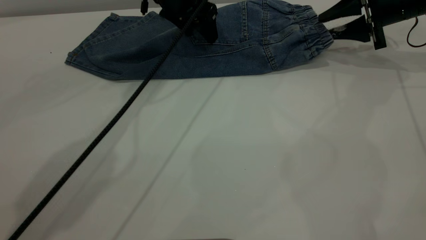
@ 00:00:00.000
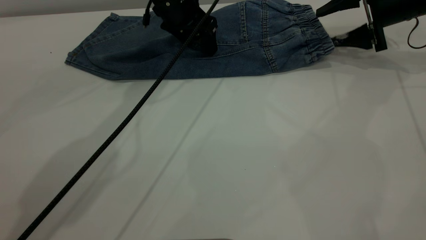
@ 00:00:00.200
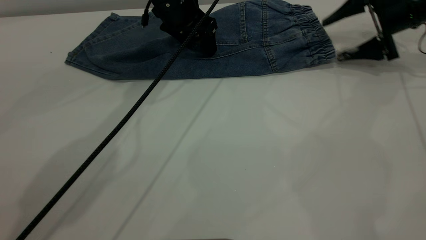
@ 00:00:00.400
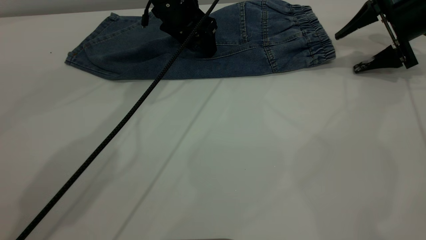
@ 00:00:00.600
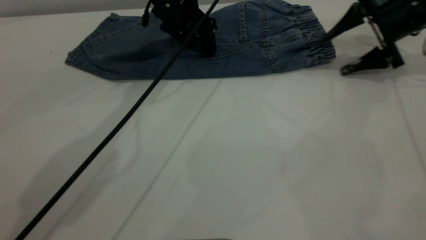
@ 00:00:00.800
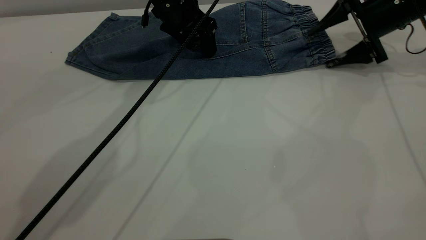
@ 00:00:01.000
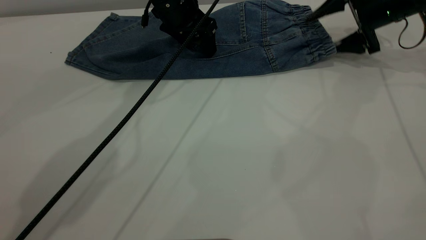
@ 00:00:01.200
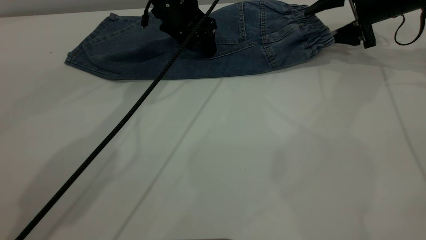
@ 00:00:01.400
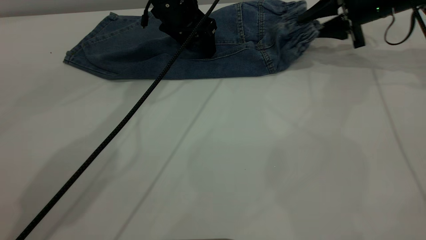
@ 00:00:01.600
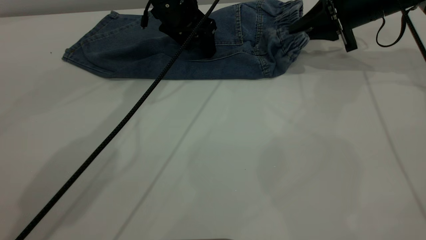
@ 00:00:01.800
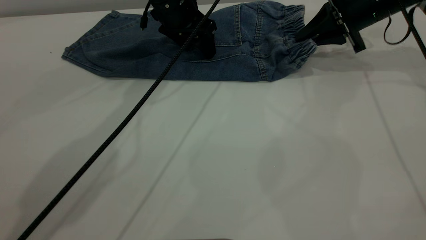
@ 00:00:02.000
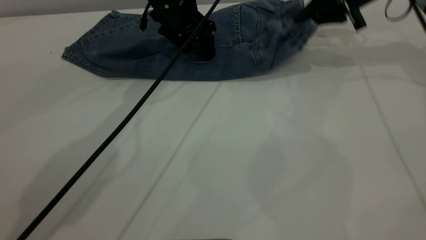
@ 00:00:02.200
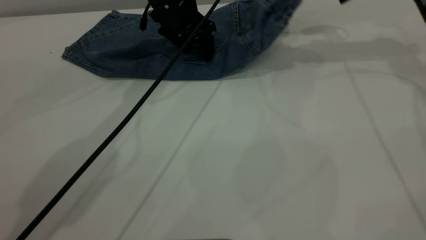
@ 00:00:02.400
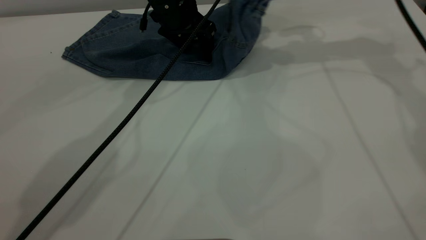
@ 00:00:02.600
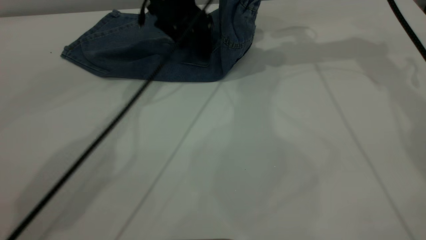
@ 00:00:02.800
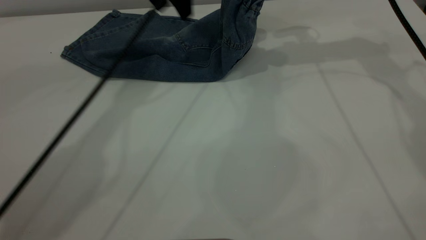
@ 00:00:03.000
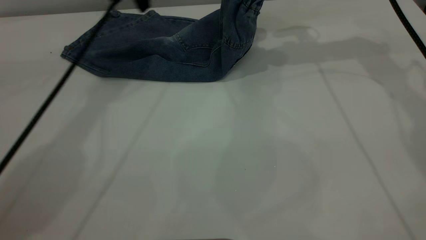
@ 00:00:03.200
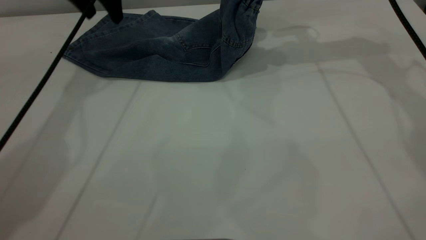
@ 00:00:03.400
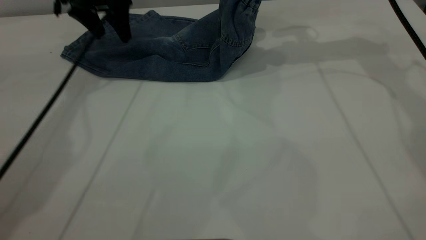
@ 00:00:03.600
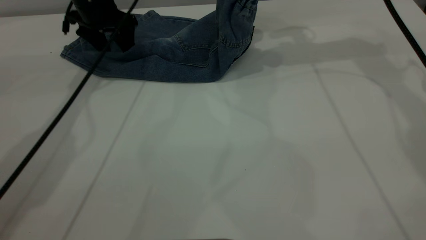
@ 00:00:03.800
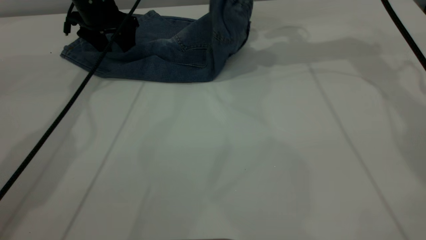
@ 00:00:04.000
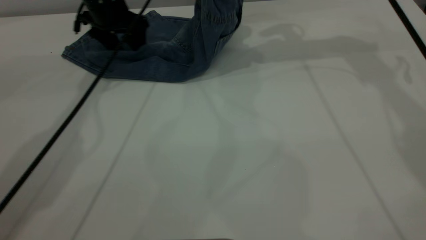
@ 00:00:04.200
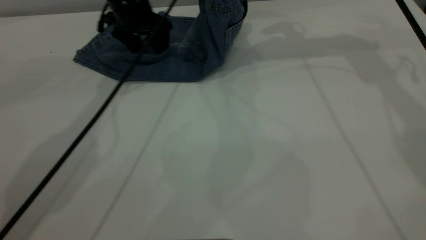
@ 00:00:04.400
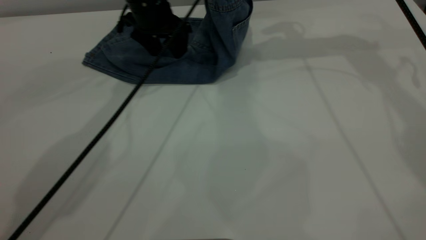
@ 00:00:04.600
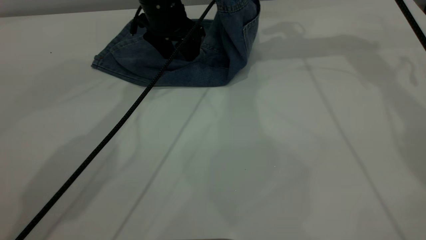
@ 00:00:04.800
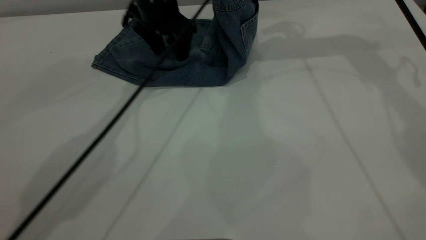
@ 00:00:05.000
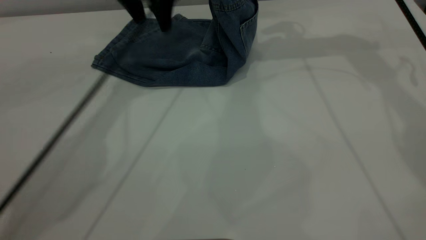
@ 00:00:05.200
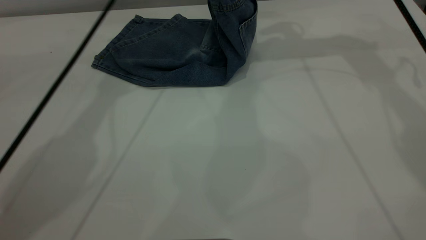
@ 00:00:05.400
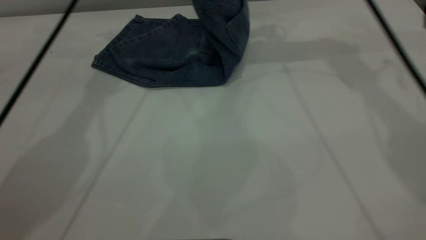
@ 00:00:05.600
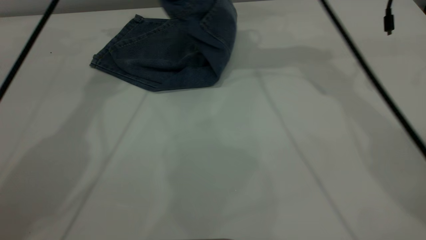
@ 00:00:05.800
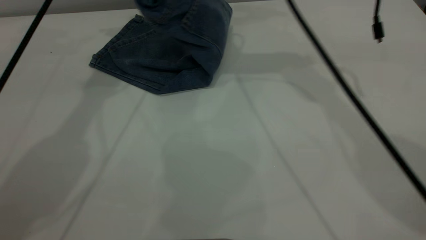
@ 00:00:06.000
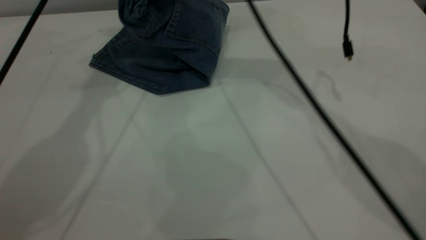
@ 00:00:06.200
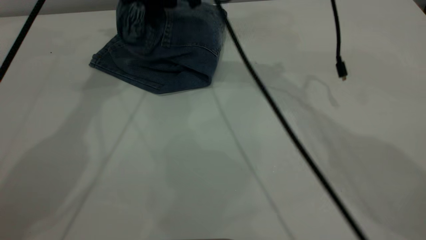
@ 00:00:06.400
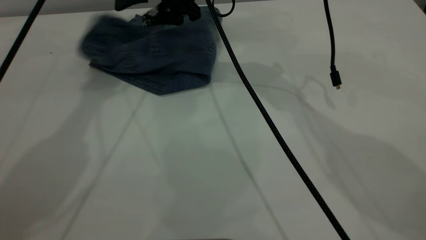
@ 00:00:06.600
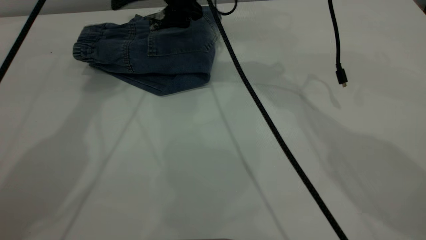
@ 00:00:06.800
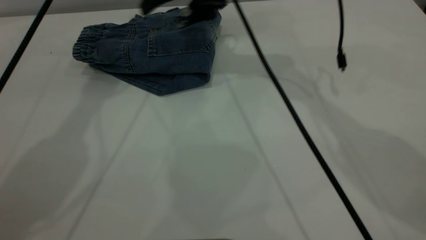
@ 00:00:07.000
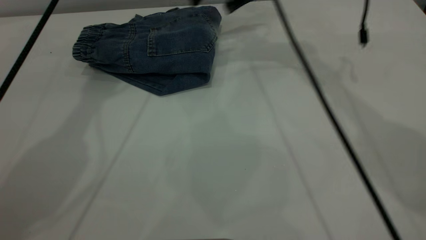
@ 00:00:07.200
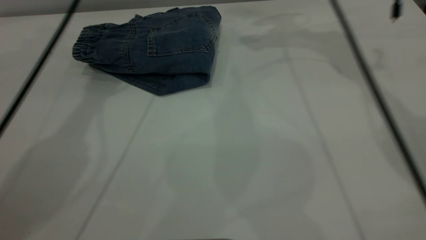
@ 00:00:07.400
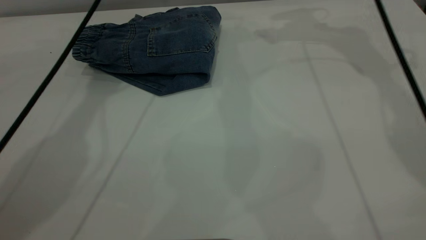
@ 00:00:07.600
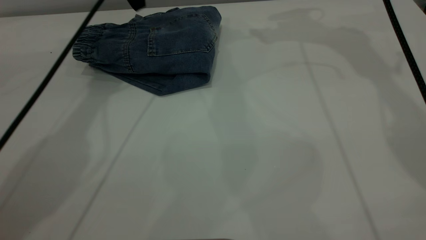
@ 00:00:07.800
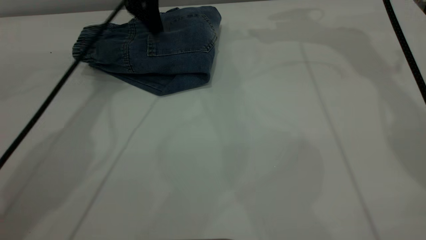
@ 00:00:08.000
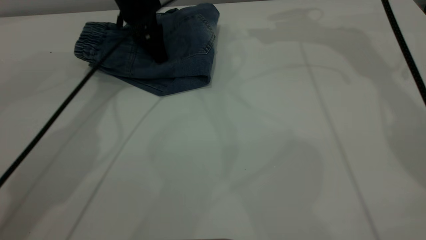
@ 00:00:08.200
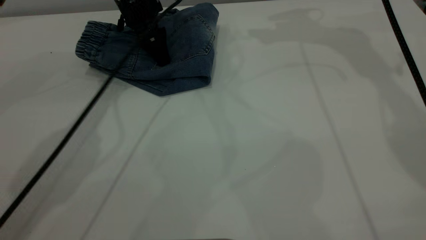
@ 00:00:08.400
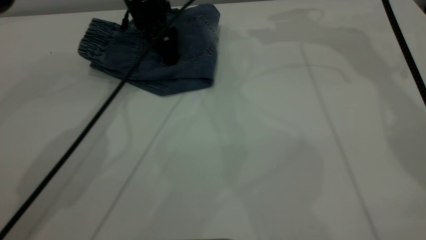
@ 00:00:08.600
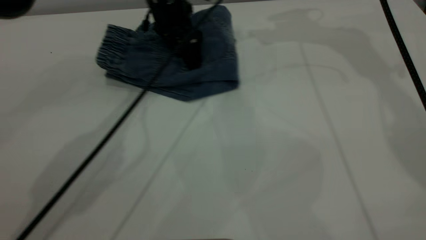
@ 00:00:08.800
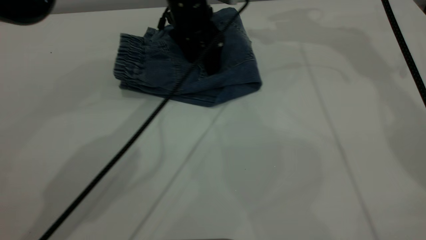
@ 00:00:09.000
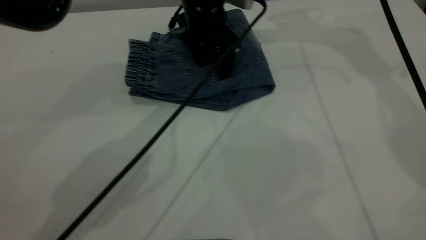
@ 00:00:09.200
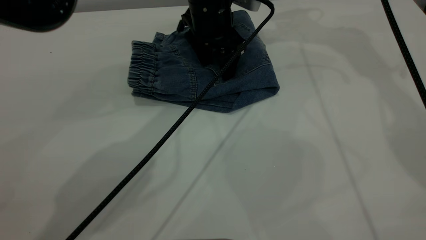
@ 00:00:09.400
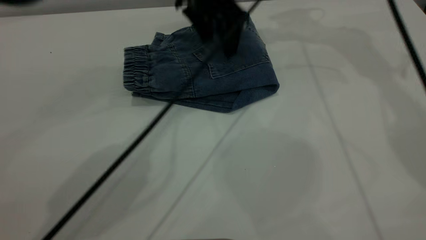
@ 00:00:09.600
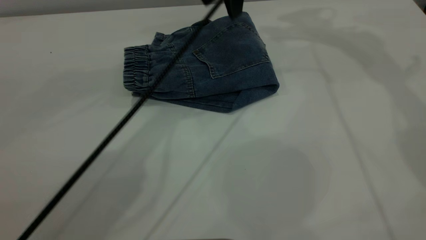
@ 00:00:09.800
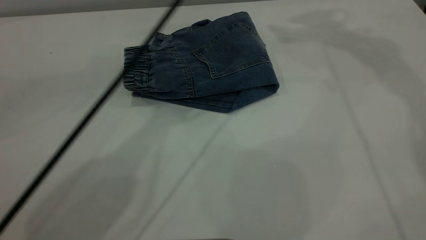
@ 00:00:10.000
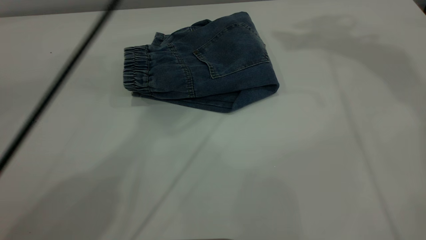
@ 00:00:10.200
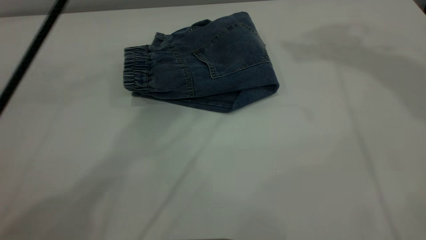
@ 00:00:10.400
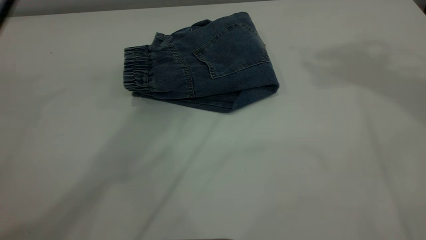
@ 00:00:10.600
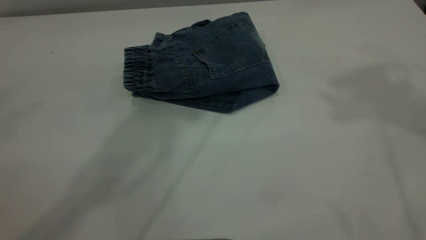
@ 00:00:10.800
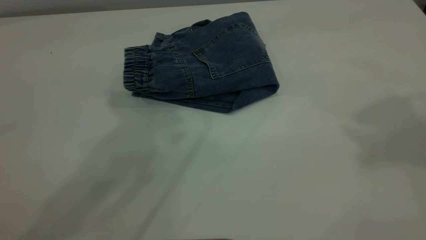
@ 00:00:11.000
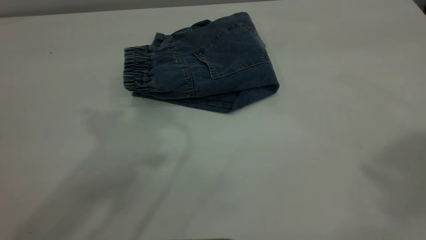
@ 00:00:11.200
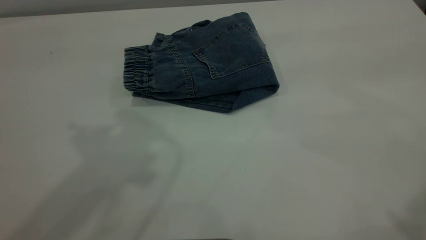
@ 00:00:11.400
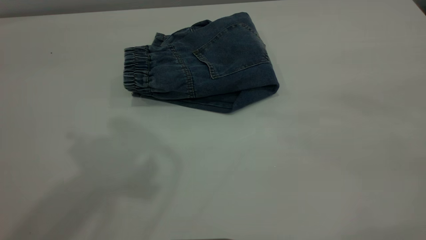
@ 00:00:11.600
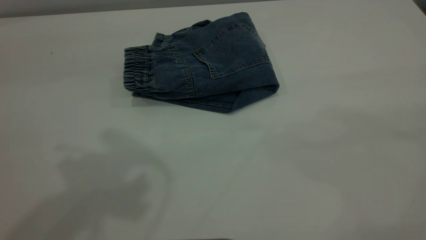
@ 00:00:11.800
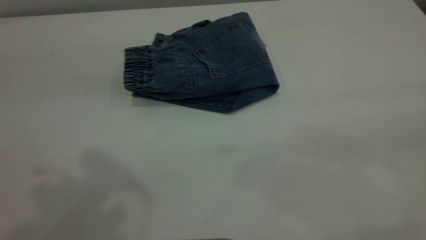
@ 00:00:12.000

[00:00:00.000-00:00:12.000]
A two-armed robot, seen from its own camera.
Step, 00:00:00.000 to 00:00:07.200: Fold your pants from right to left.
00:00:00.000 to 00:00:01.600: The right gripper closes its fingers.
00:00:01.600 to 00:00:03.000: The right gripper goes roughly 15 cm upward and to the left, while the left gripper is displaced upward by about 10 cm.
00:00:03.000 to 00:00:04.400: The right gripper shifts by approximately 5 cm, while the left gripper travels downward by some 10 cm, and reaches roughly 10 cm to the left, then returns.
00:00:04.400 to 00:00:06.000: The left gripper travels upward by approximately 20 cm. The right gripper heads to the left, covering about 15 cm.
00:00:06.000 to 00:00:07.600: The left gripper shifts some 5 cm downward. Meanwhile the right gripper travels to the right and forward by approximately 15 cm, and opens its fingers.
00:00:07.600 to 00:00:09.000: The left gripper travels to the right and downward by about 20 cm.
00:00:09.000 to 00:00:10.400: The right gripper heads upward and backward, covering approximately 20 cm. The left gripper heads upward, covering approximately 30 cm.
00:00:10.400 to 00:00:12.000: The left gripper travels backward and to the left by about 25 cm.

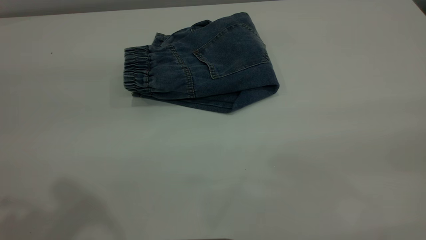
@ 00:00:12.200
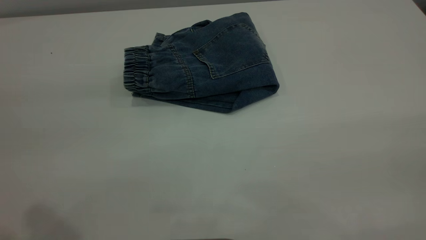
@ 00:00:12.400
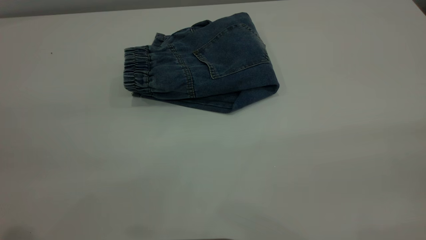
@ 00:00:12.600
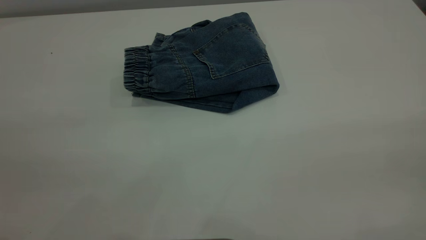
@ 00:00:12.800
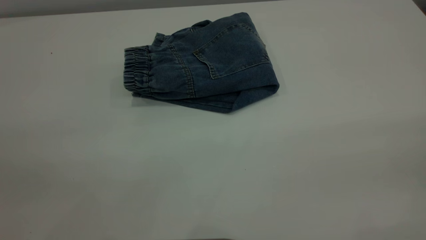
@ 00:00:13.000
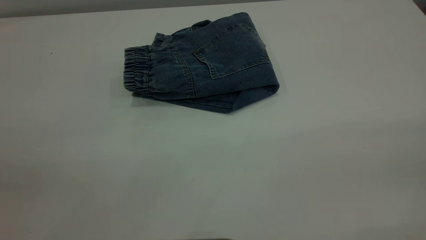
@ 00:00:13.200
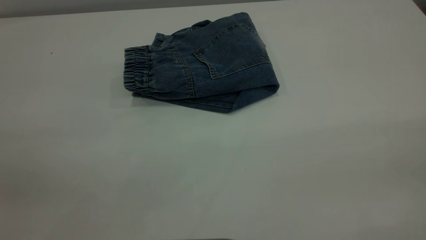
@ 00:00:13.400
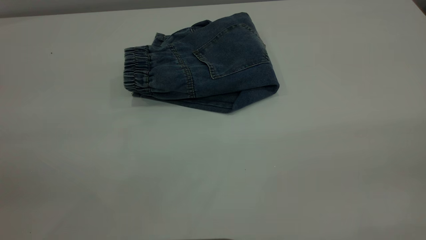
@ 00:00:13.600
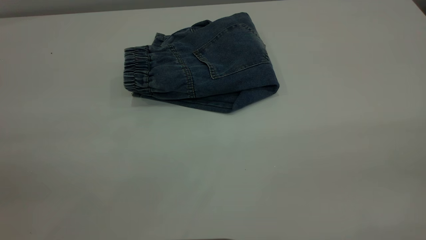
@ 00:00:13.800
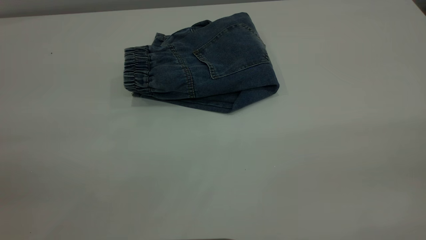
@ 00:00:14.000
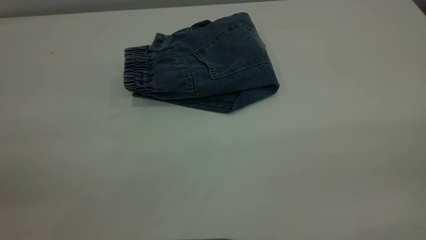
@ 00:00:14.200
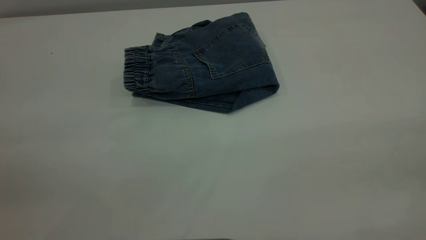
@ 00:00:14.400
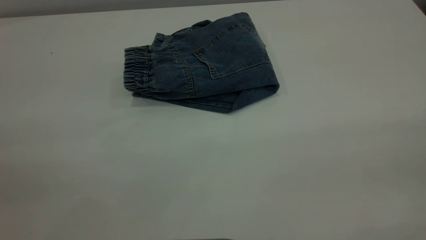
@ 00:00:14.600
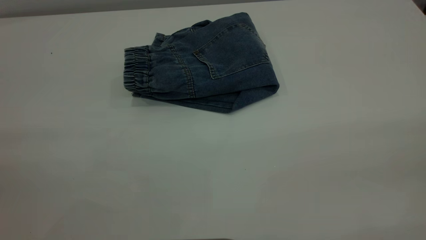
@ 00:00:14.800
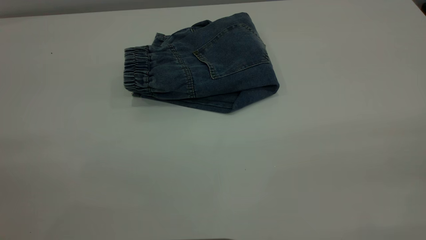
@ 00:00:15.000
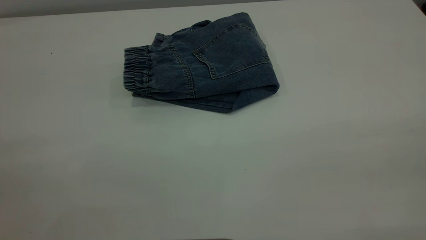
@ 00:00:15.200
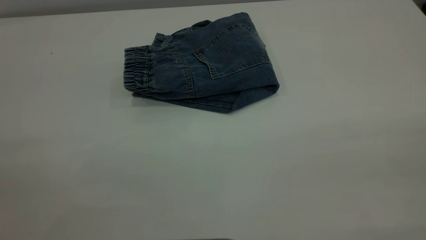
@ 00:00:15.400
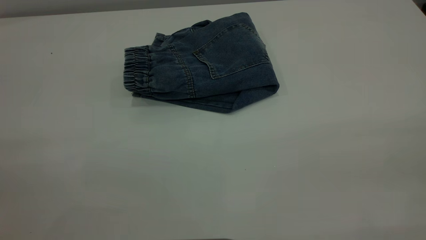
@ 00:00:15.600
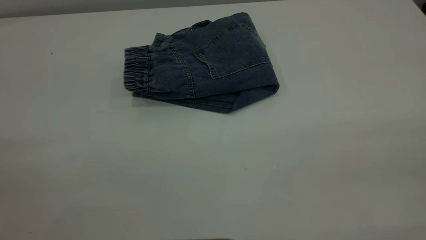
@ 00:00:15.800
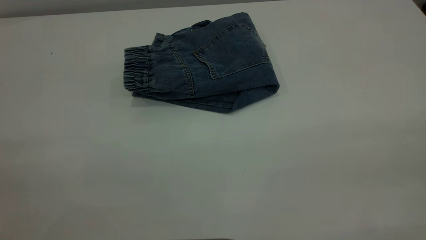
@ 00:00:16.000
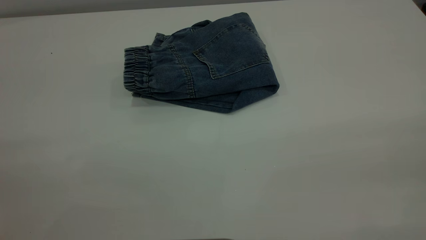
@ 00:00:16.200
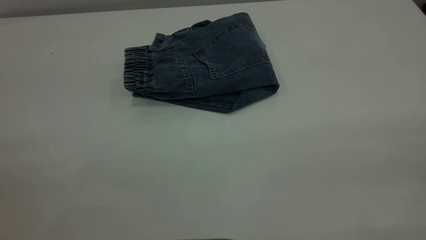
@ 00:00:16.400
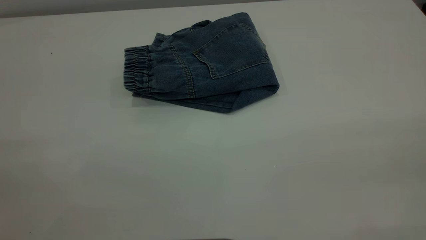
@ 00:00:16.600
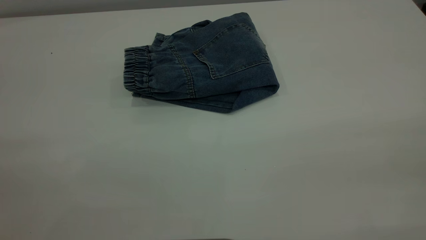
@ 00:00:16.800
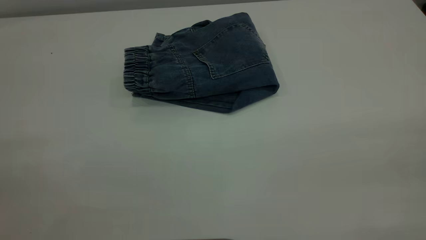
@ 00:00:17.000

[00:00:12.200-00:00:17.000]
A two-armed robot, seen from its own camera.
00:00:15.400 to 00:00:17.000: Both grippers stay put.
